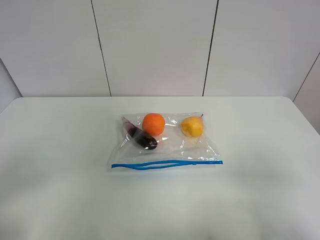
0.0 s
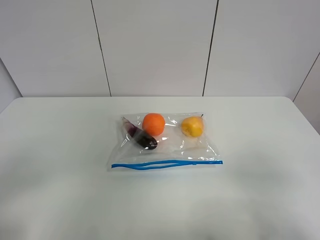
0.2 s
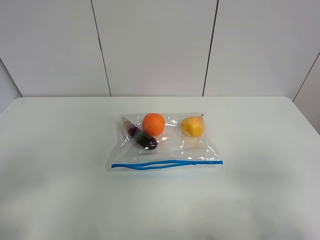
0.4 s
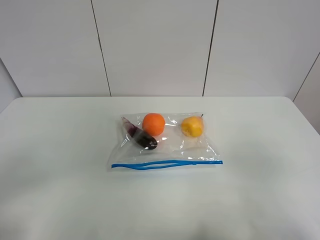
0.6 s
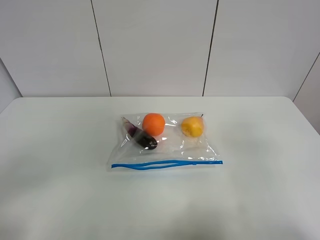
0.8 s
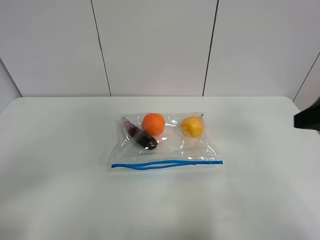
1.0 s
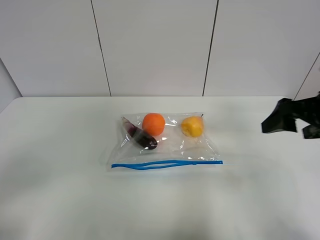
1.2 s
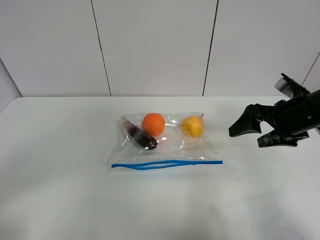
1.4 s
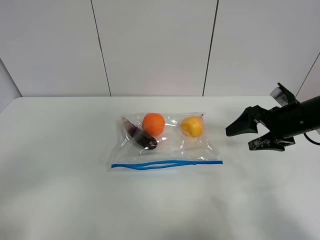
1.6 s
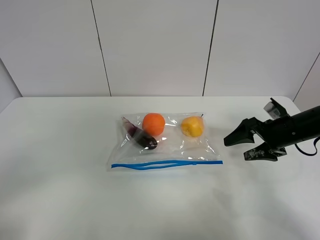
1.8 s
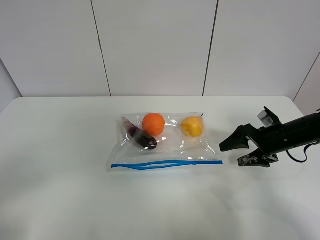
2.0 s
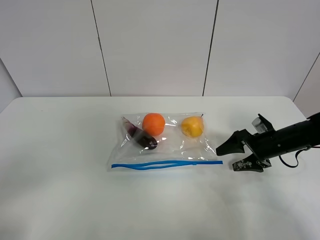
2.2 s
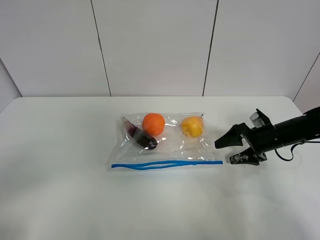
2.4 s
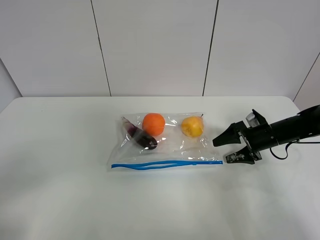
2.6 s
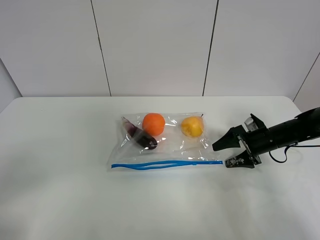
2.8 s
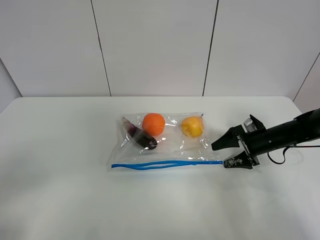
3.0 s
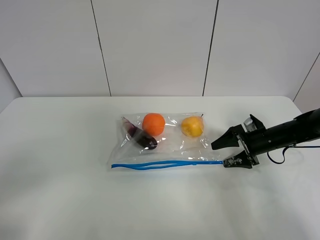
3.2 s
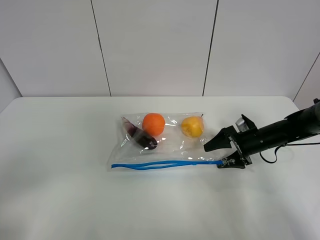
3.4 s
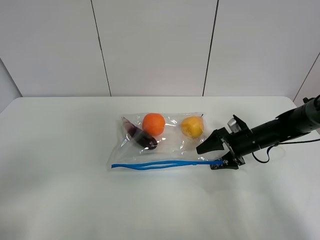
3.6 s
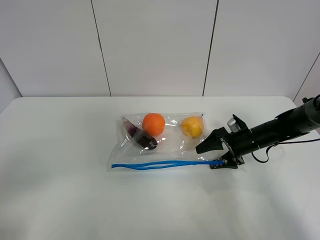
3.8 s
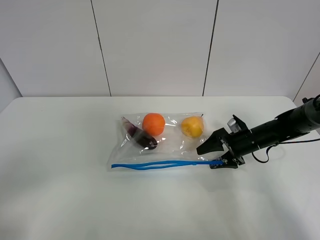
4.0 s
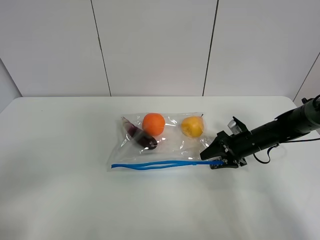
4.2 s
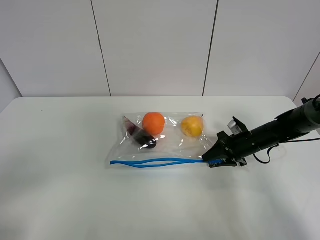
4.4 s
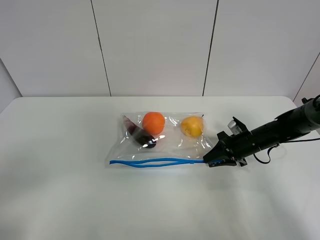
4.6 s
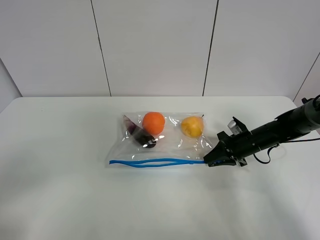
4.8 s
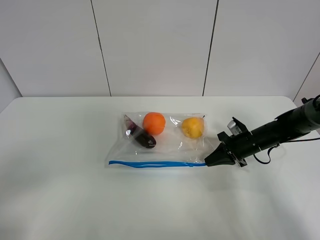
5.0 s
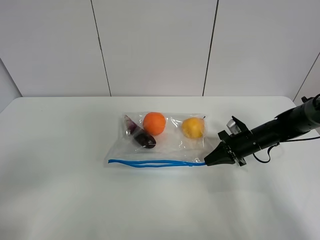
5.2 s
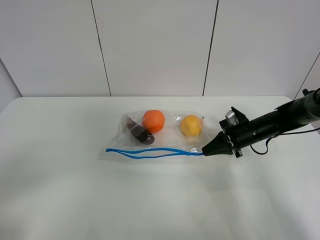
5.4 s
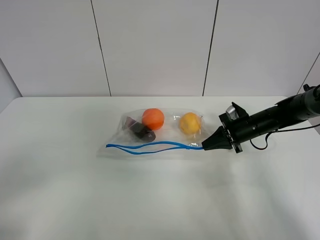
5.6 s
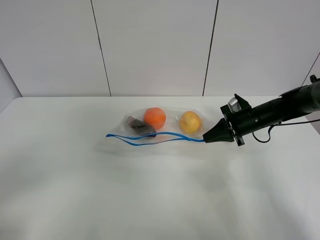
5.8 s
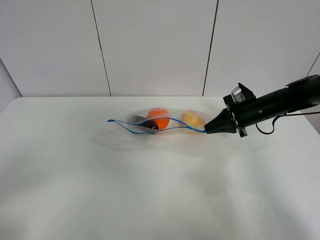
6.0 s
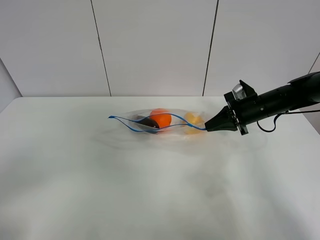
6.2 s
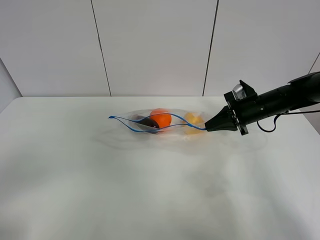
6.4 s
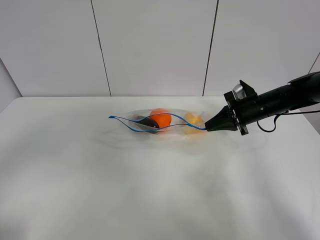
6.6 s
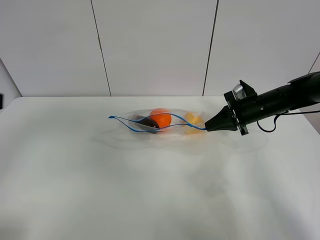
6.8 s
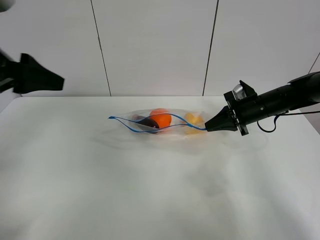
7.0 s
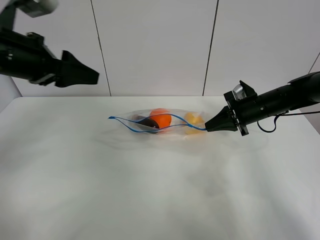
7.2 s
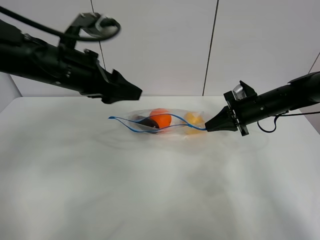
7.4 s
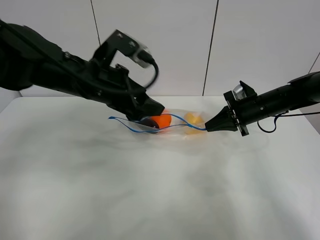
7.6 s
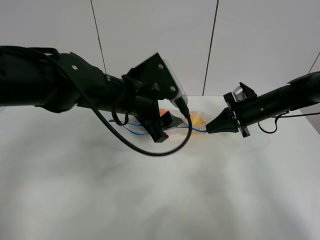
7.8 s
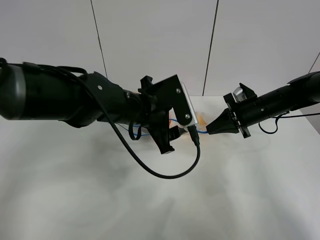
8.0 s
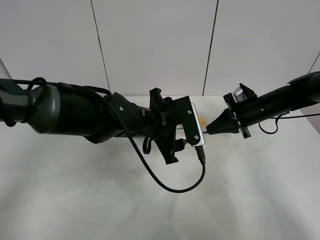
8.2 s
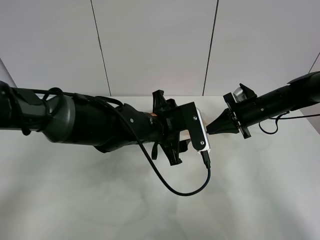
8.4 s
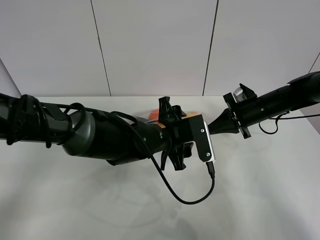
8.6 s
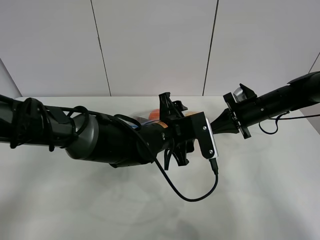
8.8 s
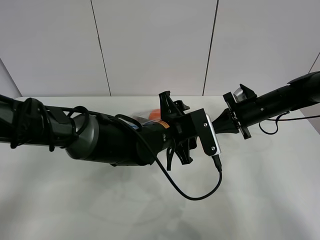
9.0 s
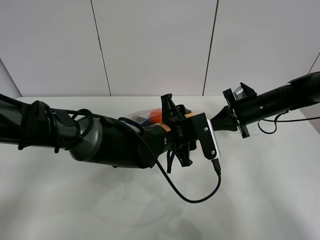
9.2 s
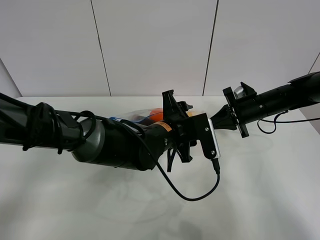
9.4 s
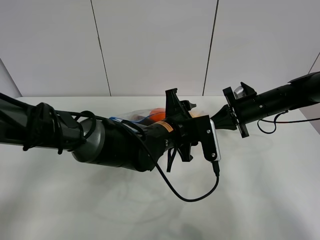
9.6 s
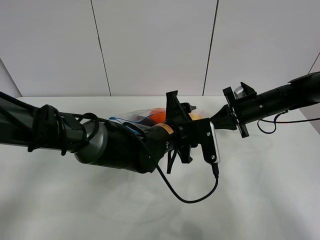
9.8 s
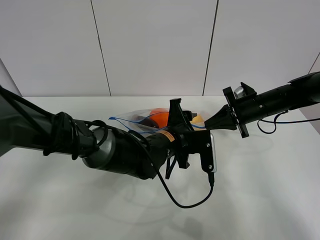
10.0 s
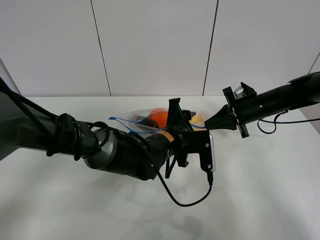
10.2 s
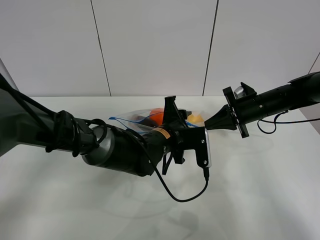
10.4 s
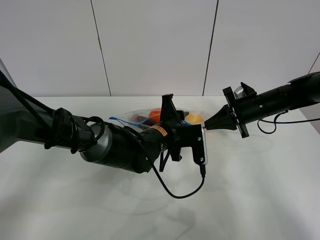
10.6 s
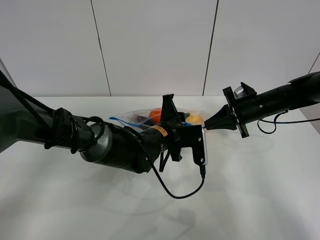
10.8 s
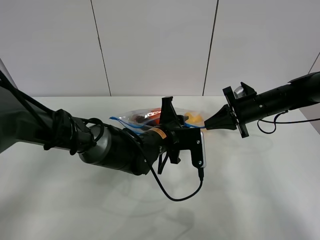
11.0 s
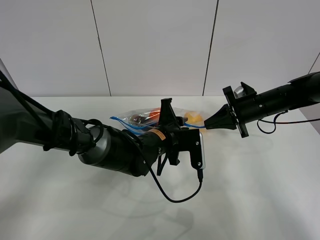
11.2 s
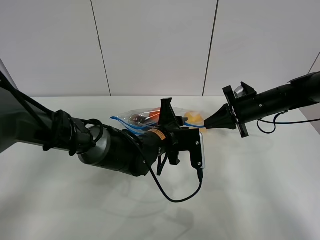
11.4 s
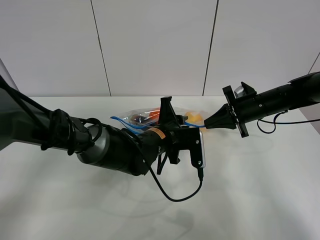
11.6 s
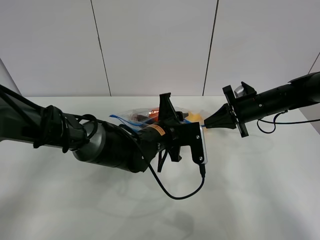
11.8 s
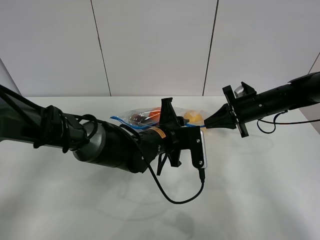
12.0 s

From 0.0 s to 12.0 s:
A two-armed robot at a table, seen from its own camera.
Step, from 0.0 s to 4.8 s: Grasp the fruit bag with right gripper.
Step, from 5.0 s to 6.6 s: Lift the fruit bag with your right gripper.
From 0.0 s to 1.6 s: The right gripper moves forward, some 30 cm.
From 1.6 s to 3.0 s: The right gripper moves downward and forward, about 15 cm.
From 3.0 s to 4.4 s: The right gripper closes up.
From 4.4 s to 6.0 s: The right gripper travels upward by about 10 cm, and closes up.
From 6.0 s to 7.6 s: The left gripper is displaced forward and to the right by some 35 cm.
From 7.6 s to 9.0 s: The left gripper goes about 15 cm downward and to the right.
From 9.0 s to 12.0 s: The grippers stay close to where they were, moving slightly.

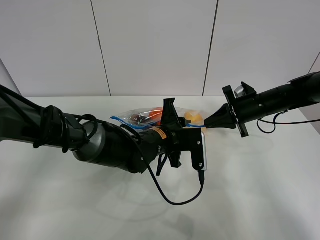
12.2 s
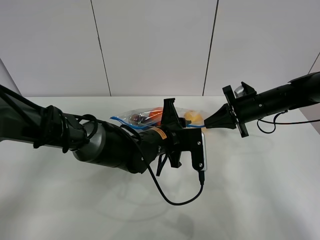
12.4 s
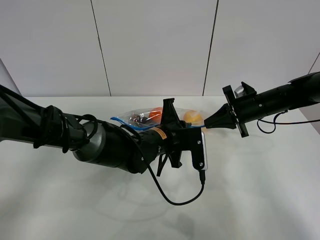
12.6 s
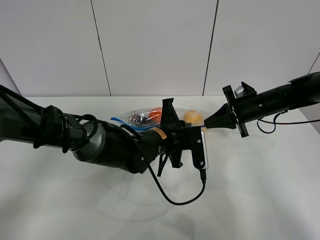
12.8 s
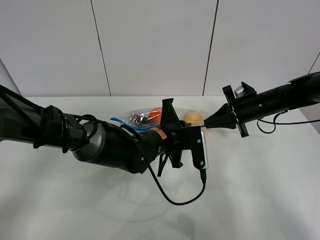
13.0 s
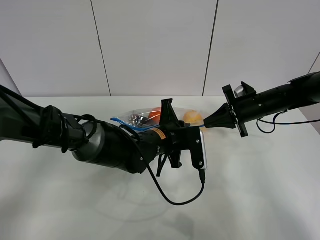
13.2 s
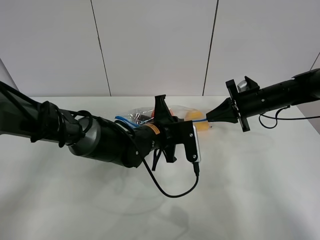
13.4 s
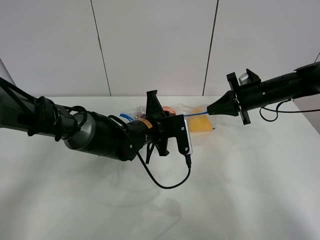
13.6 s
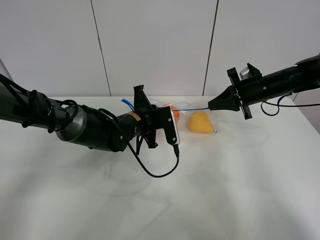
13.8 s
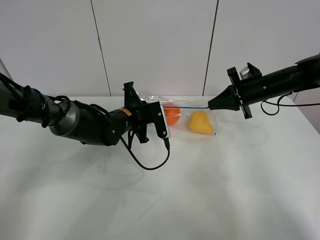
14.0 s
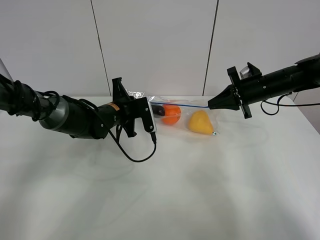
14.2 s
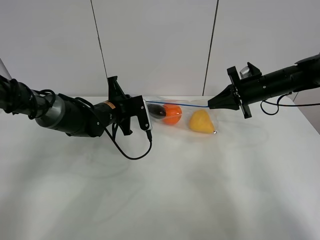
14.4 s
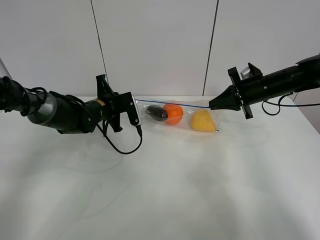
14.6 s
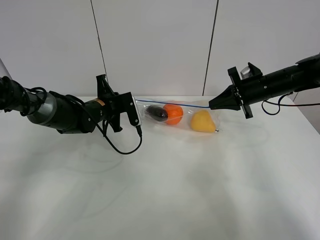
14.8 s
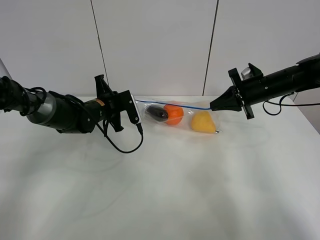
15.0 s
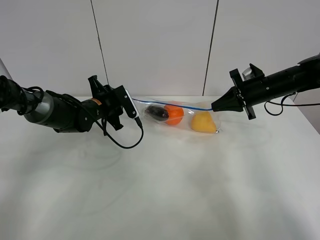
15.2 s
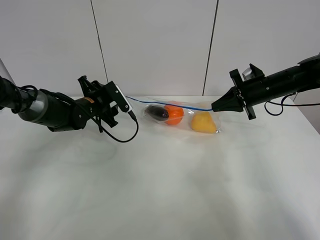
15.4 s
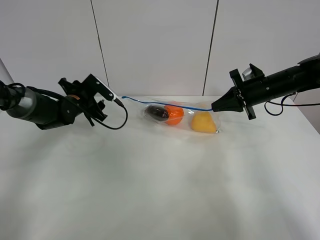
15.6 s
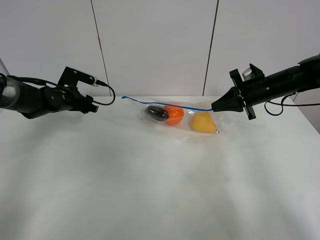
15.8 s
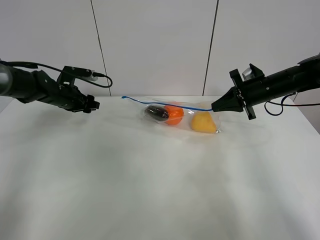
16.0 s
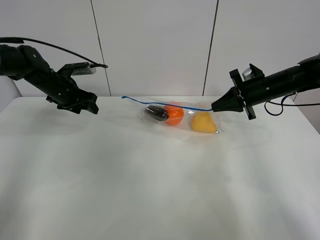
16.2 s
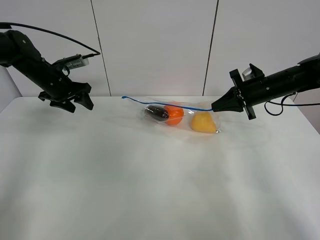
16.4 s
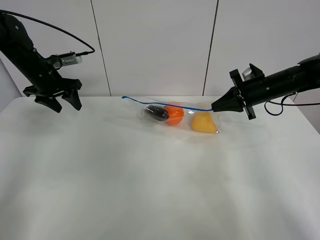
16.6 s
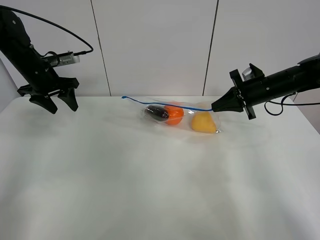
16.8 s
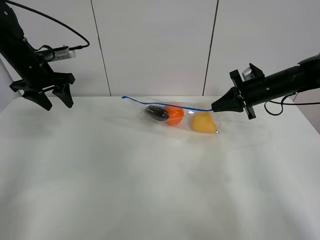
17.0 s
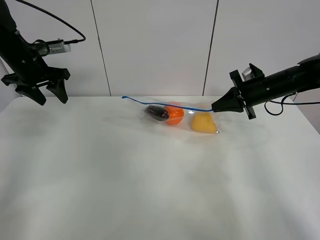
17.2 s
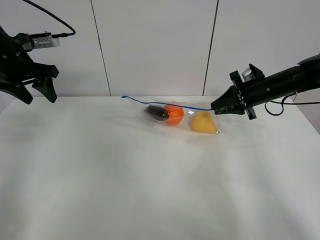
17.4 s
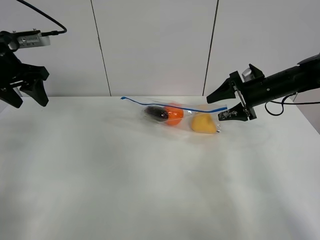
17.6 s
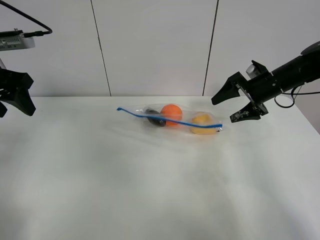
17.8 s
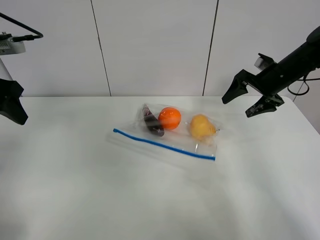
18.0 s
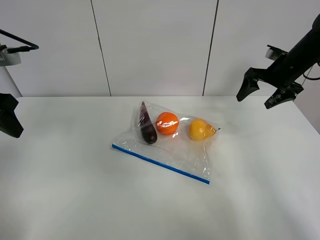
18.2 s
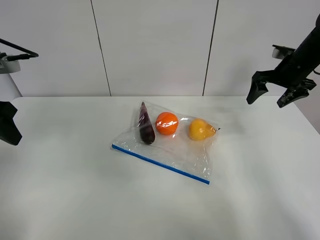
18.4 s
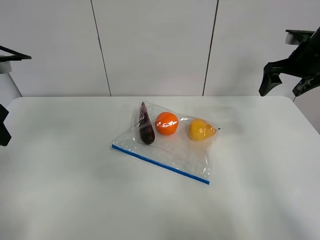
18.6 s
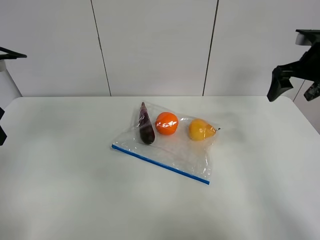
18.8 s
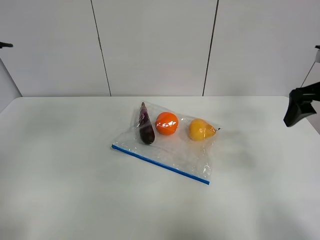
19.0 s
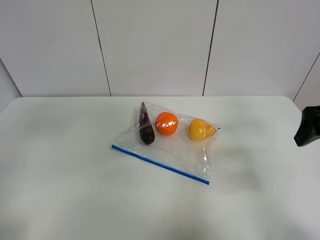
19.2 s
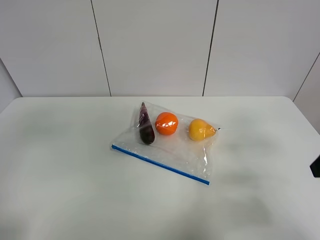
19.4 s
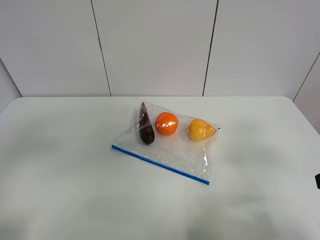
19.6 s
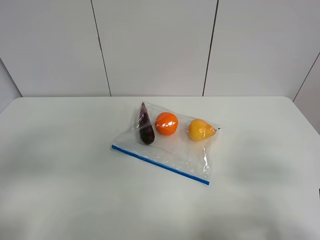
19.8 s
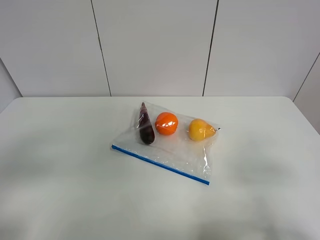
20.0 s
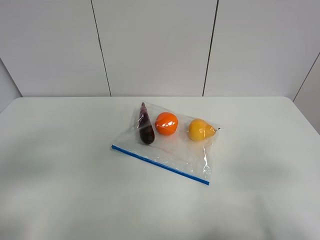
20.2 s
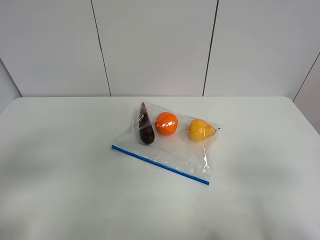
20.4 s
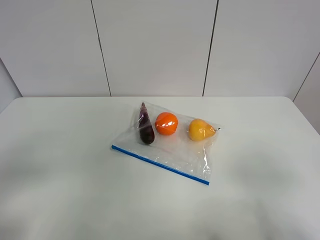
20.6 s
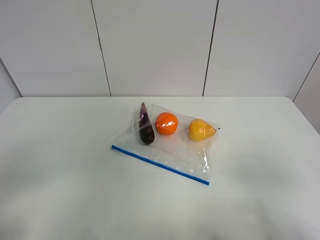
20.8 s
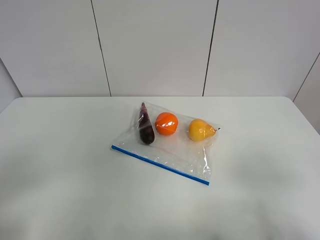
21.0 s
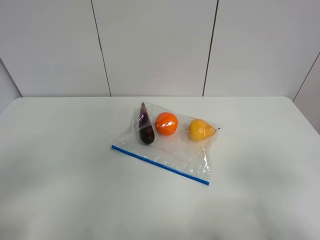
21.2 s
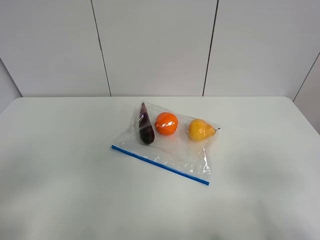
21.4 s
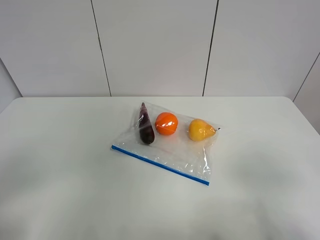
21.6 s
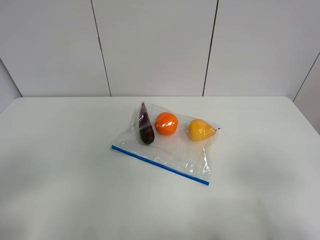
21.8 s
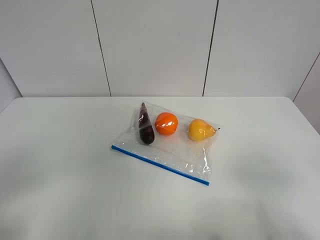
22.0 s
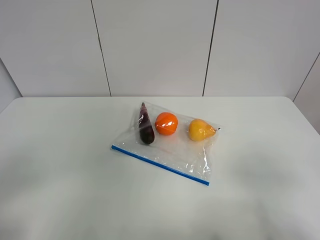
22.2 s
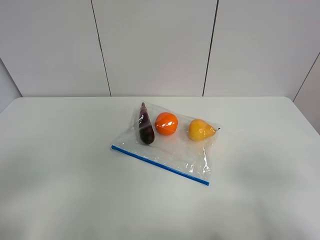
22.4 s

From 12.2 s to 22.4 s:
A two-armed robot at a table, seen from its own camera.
Step, from 12.2 s to 15.2 s: Pull the fruit bag with left gripper.
From 12.2 s to 13.6 s: The left gripper ends up about 5 cm from where it was.
From 13.6 s to 15.2 s: The left gripper goes approximately 15 cm to the left and forward, and opens.
From 15.2 s to 16.6 s: The left gripper heads to the left and upward, covering some 15 cm.
From 16.6 s to 18.0 s: The right gripper shifts by some 5 cm, and opens; the left gripper is displaced backward and upward by about 20 cm.
From 18.0 s to 19.4 s: The right gripper shifts approximately 30 cm backward. Meanwhile the left gripper shifts approximately 15 cm backward.
From 19.4 s to 21.0 s: The left gripper heads backward and downward, covering about 15 cm. Meanwhile the right gripper shifts approximately 15 cm backward.
From 21.0 s to 22.4 s: Neither gripper changes place.
